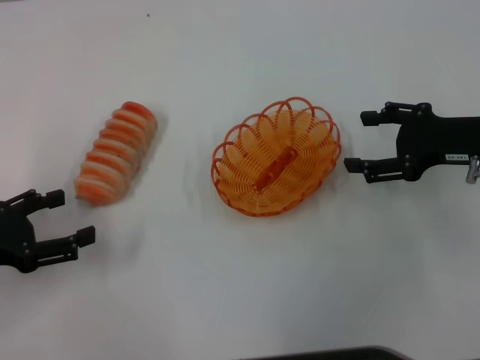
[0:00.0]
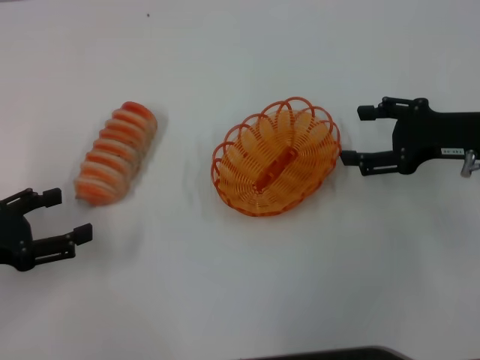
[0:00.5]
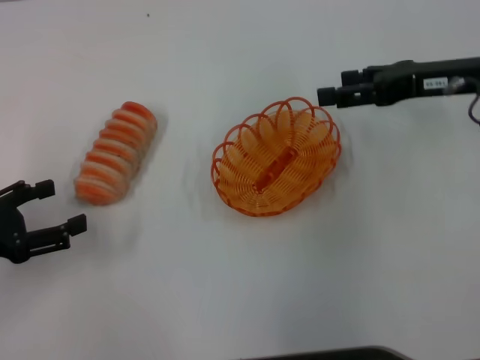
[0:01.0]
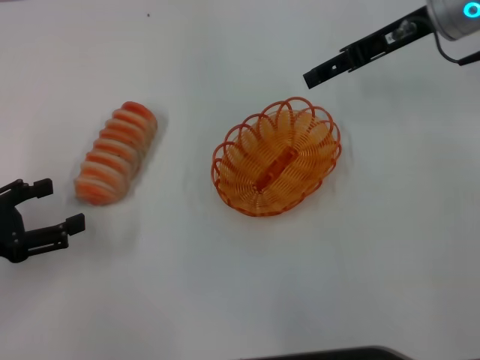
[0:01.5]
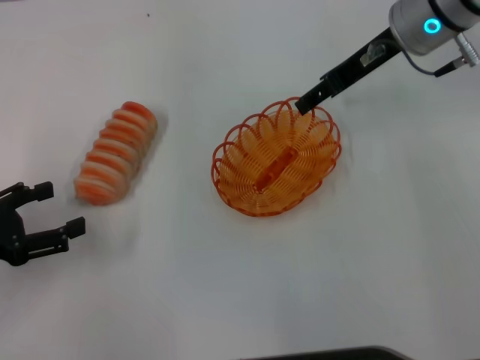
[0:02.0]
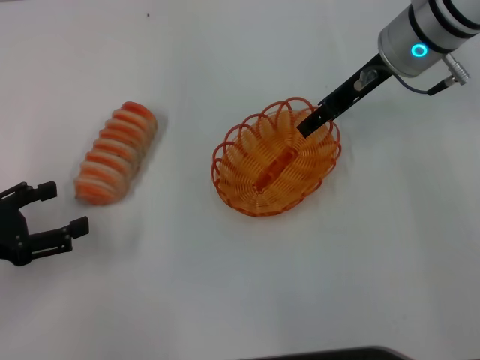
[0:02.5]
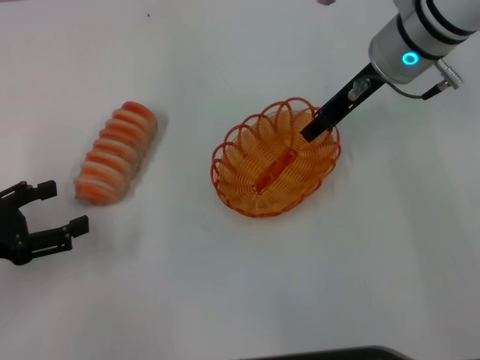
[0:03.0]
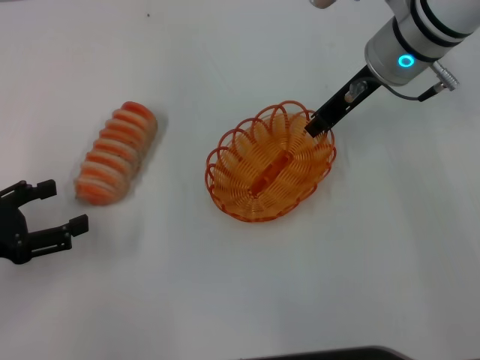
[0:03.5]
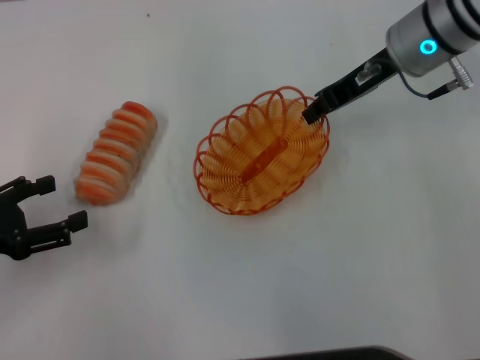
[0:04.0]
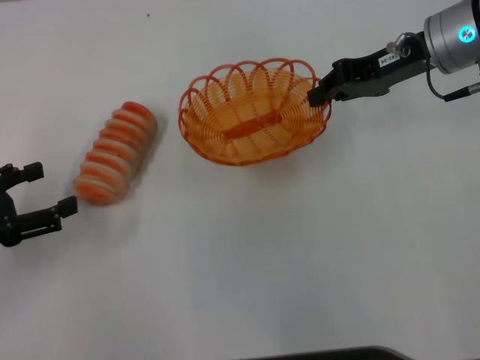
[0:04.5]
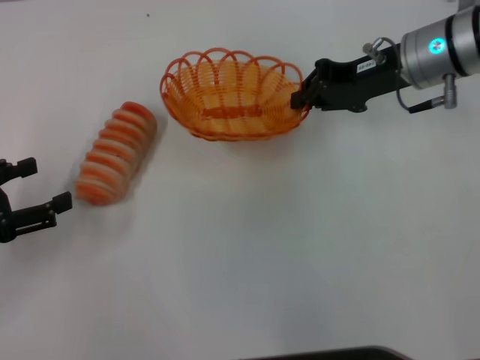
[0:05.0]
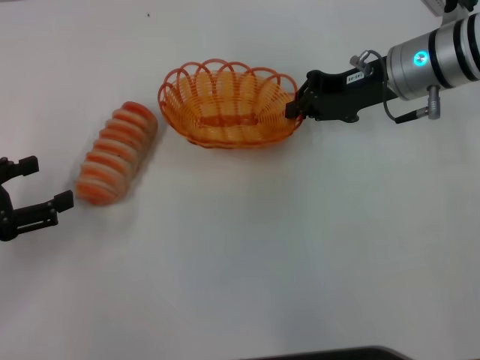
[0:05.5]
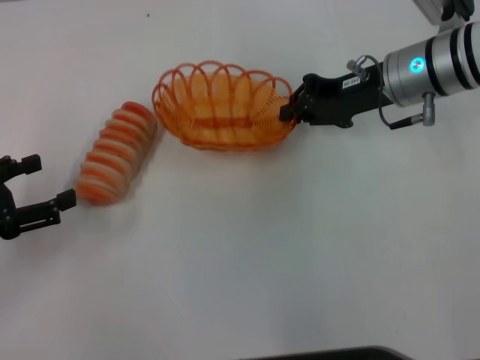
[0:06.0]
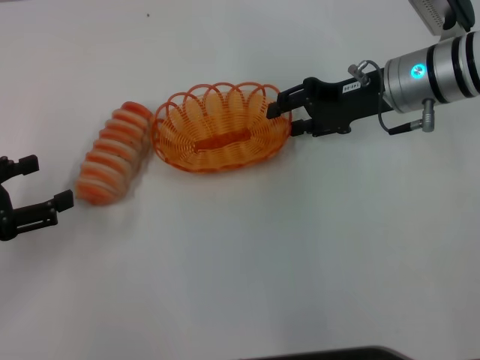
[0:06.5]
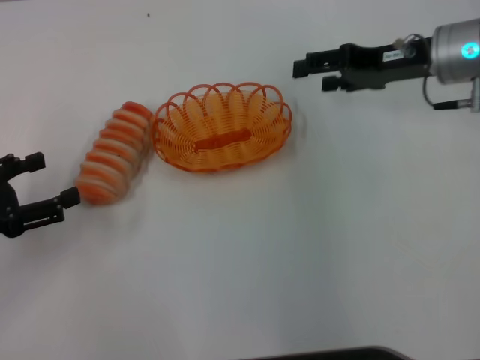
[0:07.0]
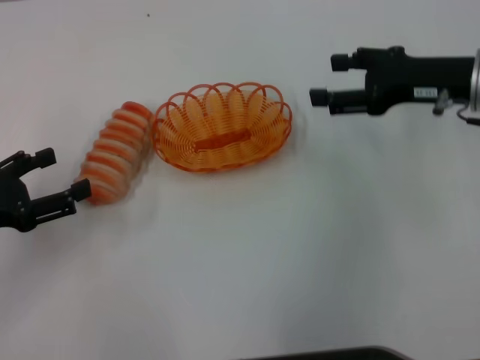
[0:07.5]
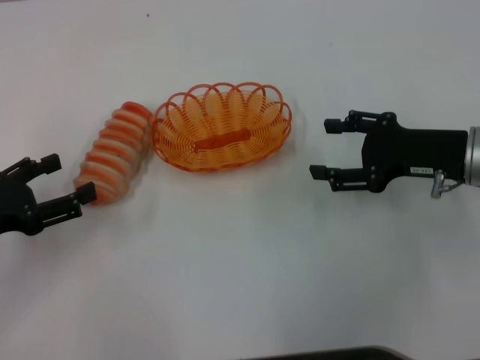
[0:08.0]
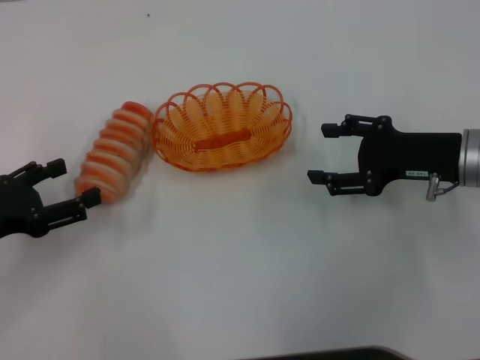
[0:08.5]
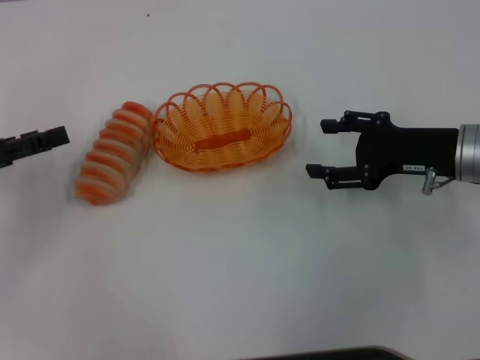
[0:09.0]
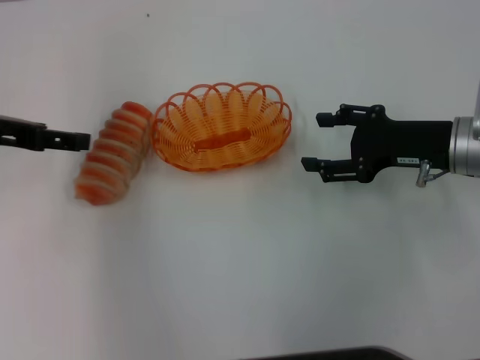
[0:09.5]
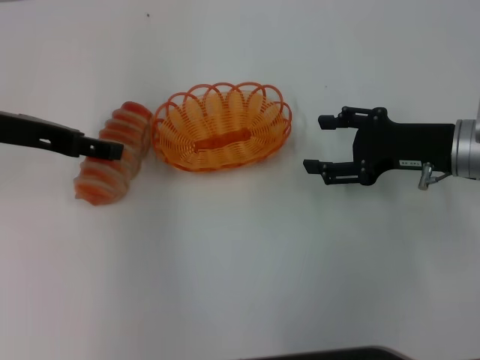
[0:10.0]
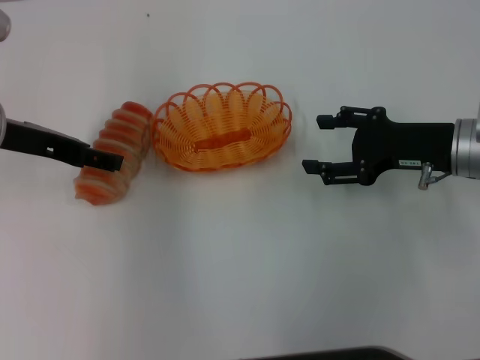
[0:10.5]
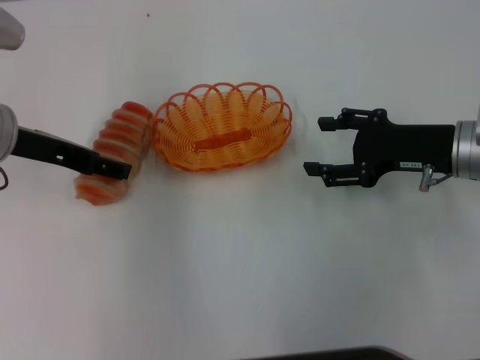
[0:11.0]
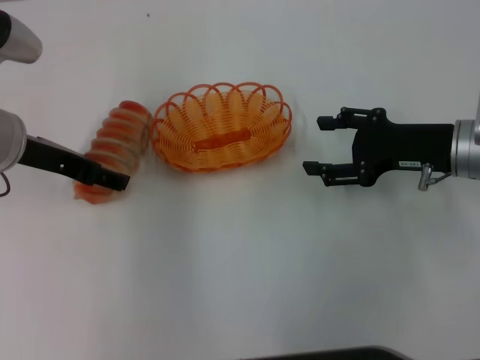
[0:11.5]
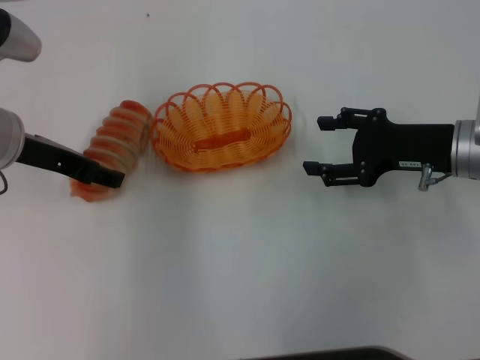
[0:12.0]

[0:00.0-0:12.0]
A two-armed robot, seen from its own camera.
Step, 0:00.0 to 0:04.0: Pick up the basket with the right gripper.
Step, 0:04.5 to 0:06.5: Place the basket in the center of view with the right gripper.
0:00.0 to 0:02.0: The right gripper goes some 20 cm forward, to the left and upward.
0:02.0 to 0:04.0: The right gripper closes its fingers.
0:04.0 to 0:06.0: The right gripper changes place by about 5 cm.
0:06.0 to 0:08.0: The right gripper moves backward and to the right, some 10 cm, and opens its fingers.
0:08.0 to 0:10.0: The left gripper moves forward, upward and to the right, approximately 15 cm.
0:10.0 to 0:12.0: There are only small adjustments of the grippers.

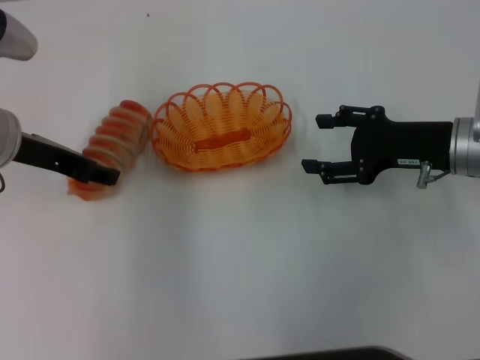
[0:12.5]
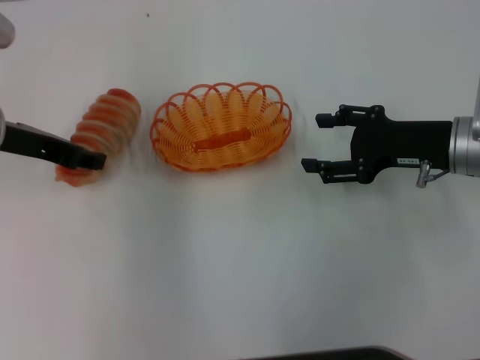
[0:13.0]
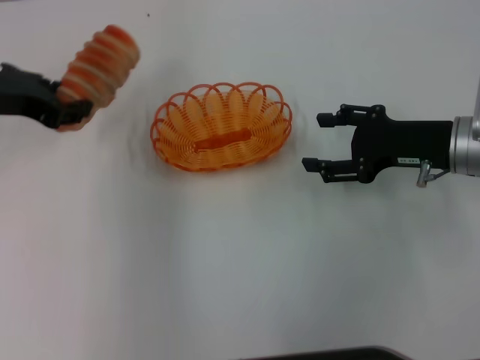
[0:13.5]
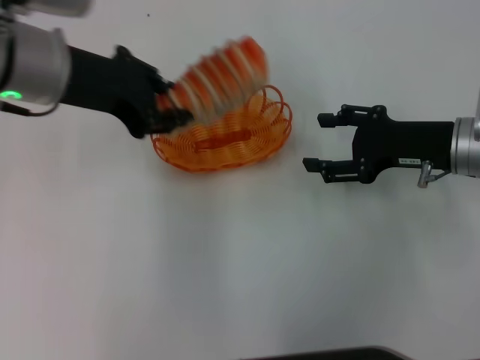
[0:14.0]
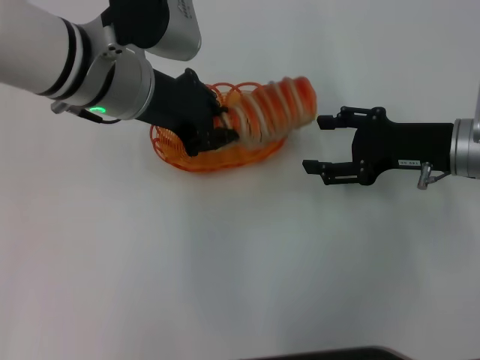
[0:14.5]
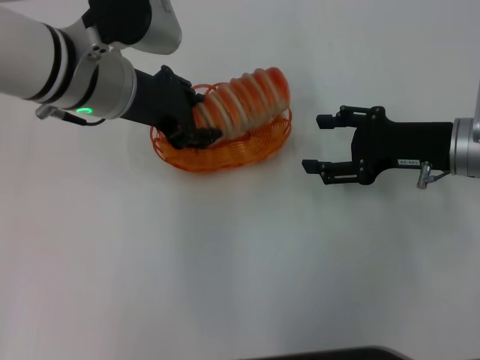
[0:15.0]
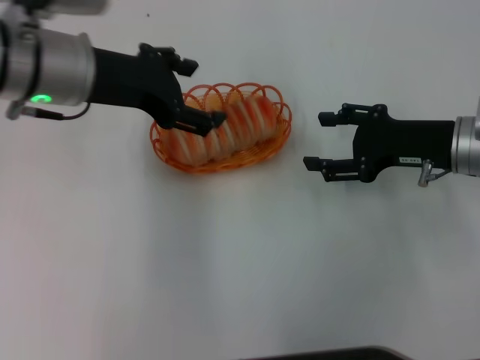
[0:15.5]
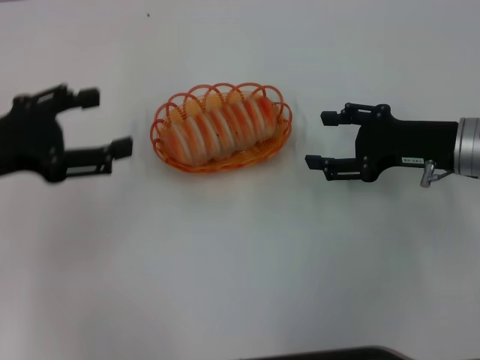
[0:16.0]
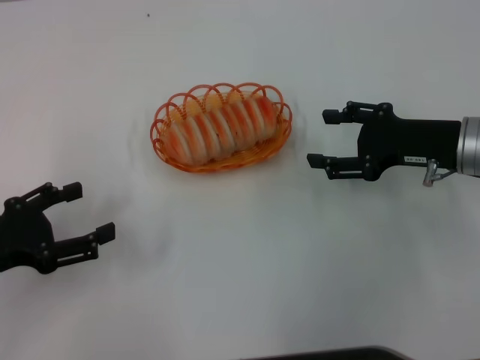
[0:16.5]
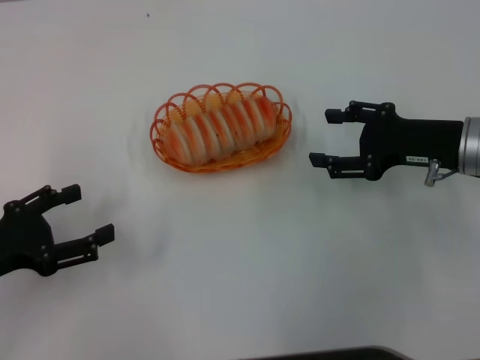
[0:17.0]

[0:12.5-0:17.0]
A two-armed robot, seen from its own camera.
Step, 0:13.5 to 0:15.5: Place the long bread into the basket with the left gripper.
0:12.5 to 0:14.5: The left gripper moves to the right, about 10 cm, and closes.
0:14.5 to 0:17.0: The left gripper travels to the left, backward and downward by some 25 cm, and opens its fingers.

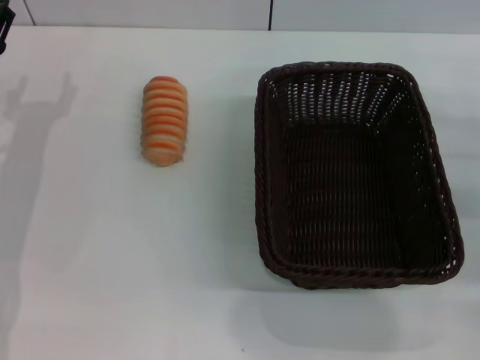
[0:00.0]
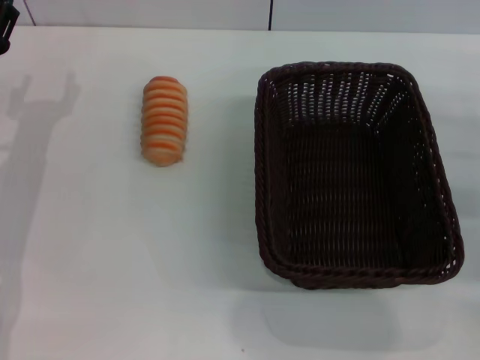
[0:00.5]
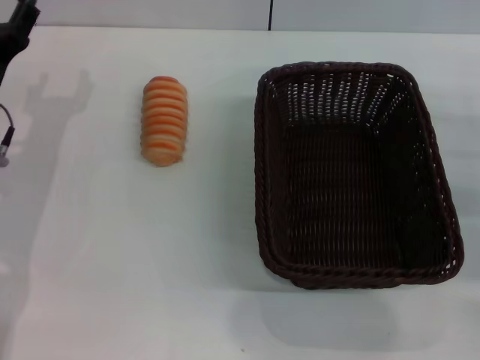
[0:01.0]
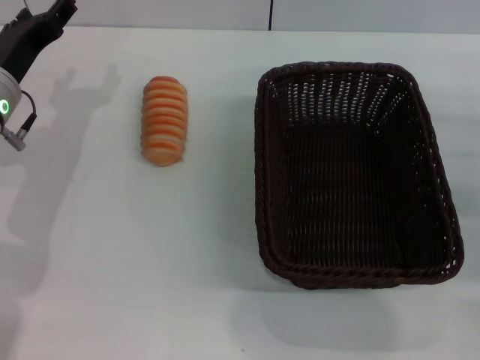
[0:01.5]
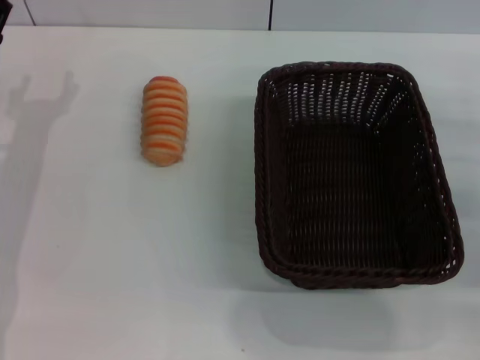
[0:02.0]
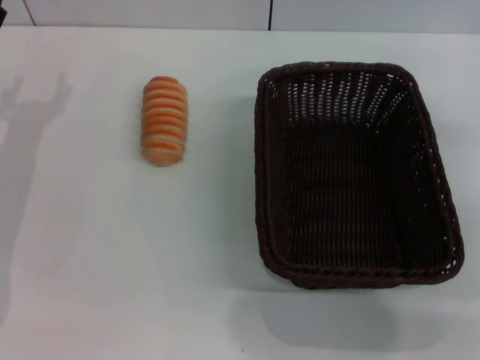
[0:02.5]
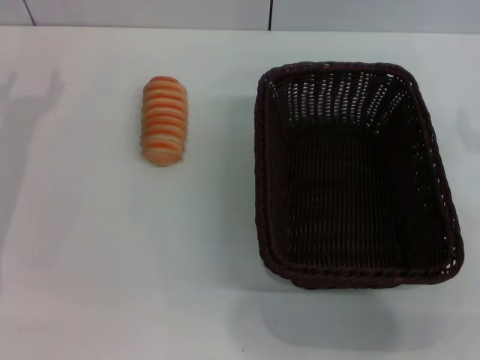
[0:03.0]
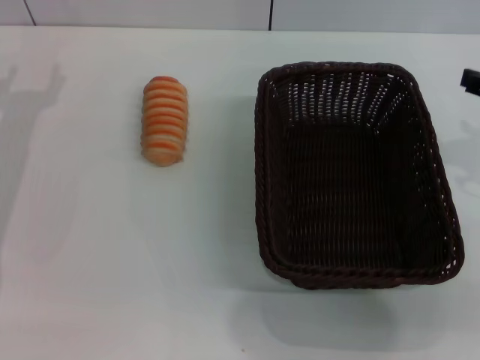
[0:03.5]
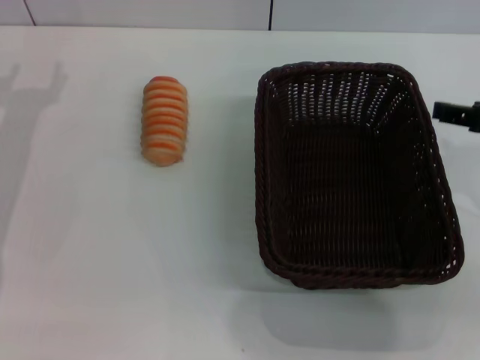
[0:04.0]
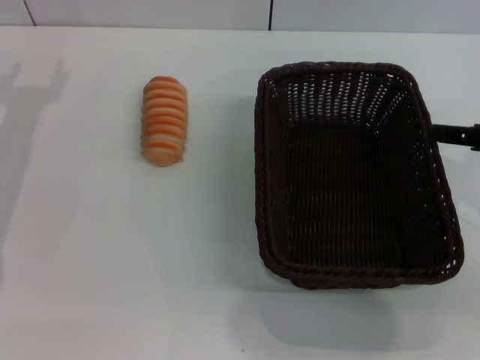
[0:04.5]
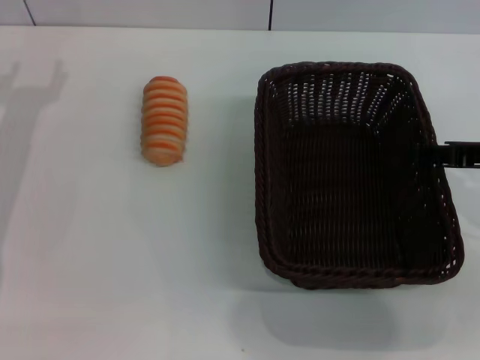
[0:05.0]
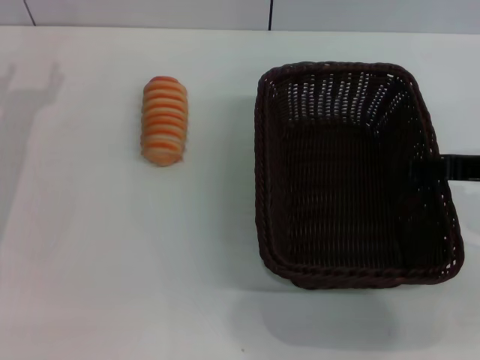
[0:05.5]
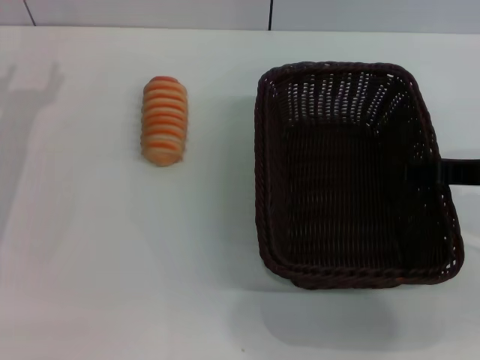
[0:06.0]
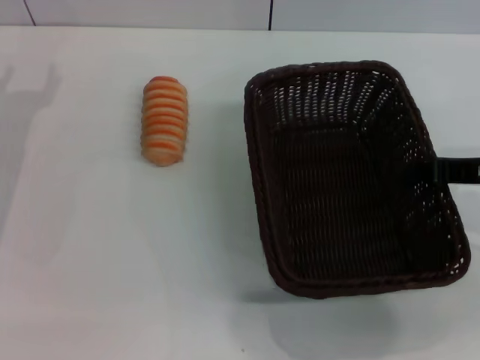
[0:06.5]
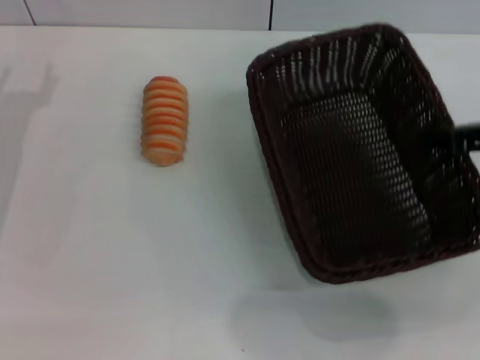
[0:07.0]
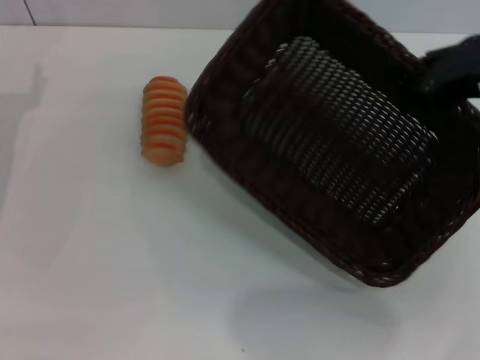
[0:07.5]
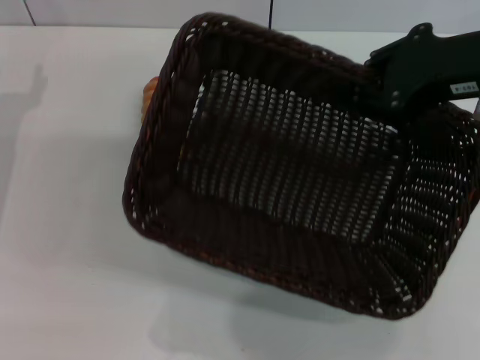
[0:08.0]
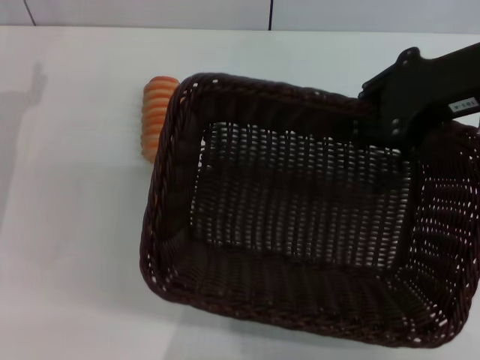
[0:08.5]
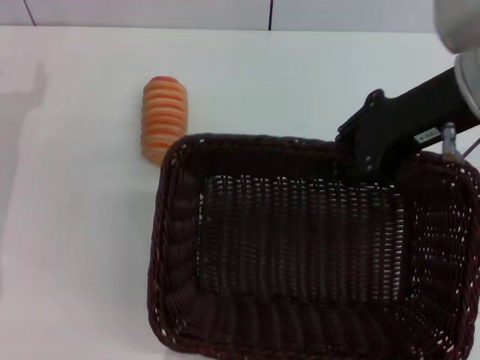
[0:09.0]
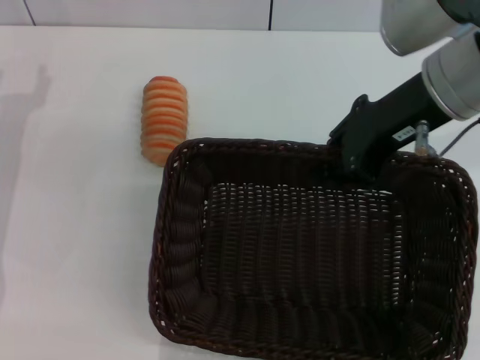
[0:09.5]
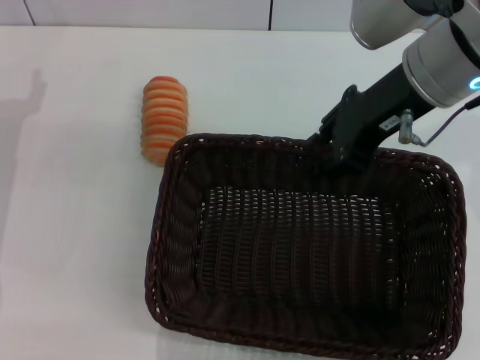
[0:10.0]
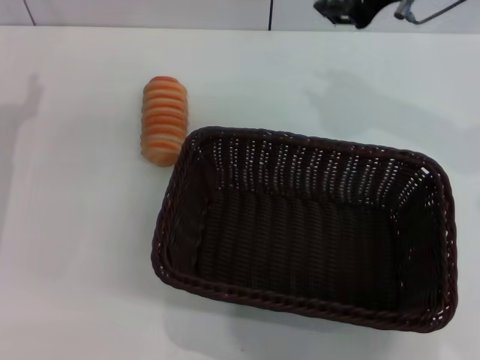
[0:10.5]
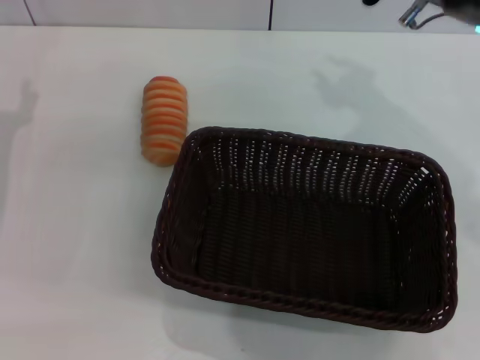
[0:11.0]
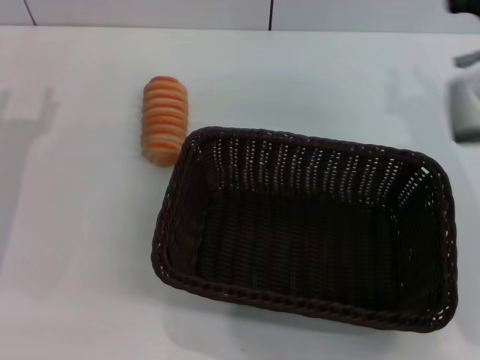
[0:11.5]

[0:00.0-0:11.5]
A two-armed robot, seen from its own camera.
Step, 0:00.0 to 0:07.5: Pick up the dark basket with the right gripper.
Step, 0:08.0 to 0:10.5: Place the dark basket in the center of view with the right gripper.
0:02.0 to 0:04.0: The right gripper goes some 10 cm upward and to the left.
0:04.0 to 0:06.0: There are only small adjustments of the grippers.
0:06.0 to 0:07.5: The right gripper moves upward, some 5 cm, and closes.
0:07.5 to 0:09.5: The right gripper heads to the left, covering approximately 10 cm.
0:09.5 to 0:11.5: The right gripper heads downward, covering approximately 10 cm.
